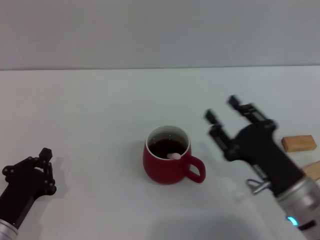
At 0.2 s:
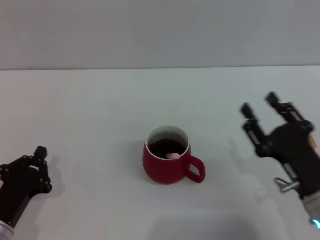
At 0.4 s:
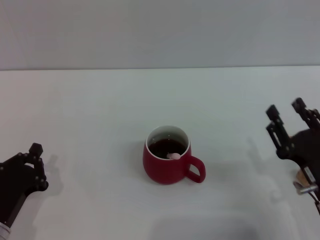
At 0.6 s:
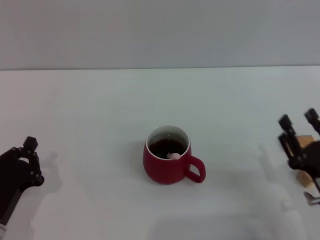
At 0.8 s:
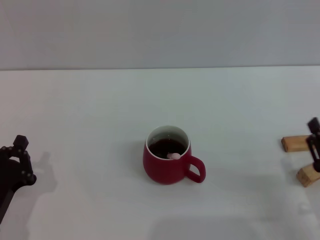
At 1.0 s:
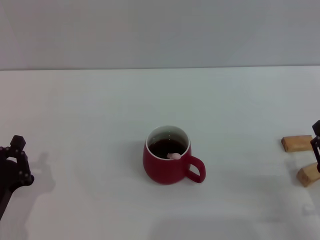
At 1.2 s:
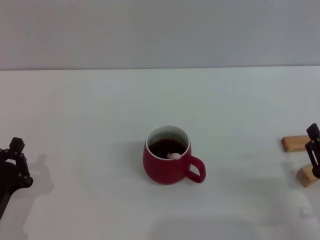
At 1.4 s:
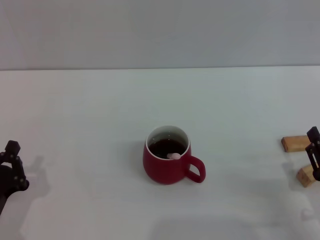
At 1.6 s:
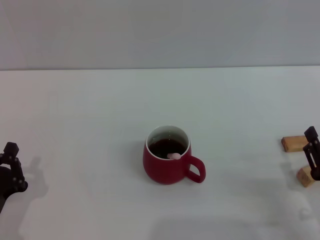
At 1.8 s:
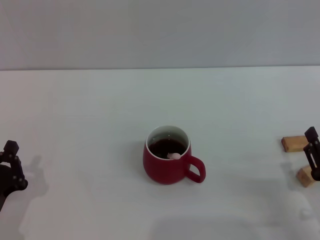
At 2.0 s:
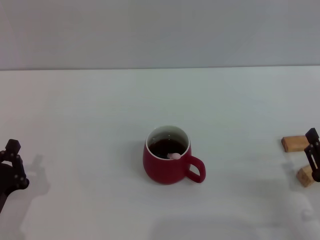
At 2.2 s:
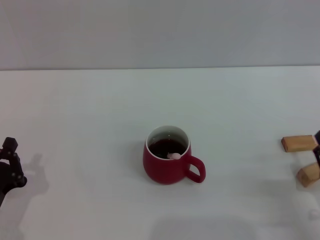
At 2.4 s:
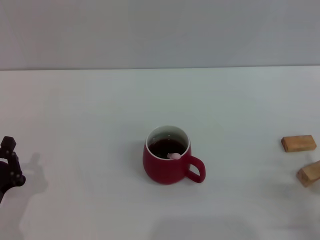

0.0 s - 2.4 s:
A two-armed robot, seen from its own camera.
Task of the whole recording: Move the red cup to the center, lift the pink spoon, stir it three times in the cup, and put the spoon into the cup.
0.0 s - 1.2 s: The right gripper shifts about 10 cm to the right and backward.
1.2 s - 2.4 s: The grippers stay close to where they were, moving slightly.

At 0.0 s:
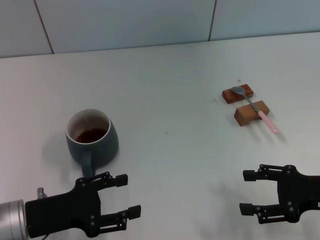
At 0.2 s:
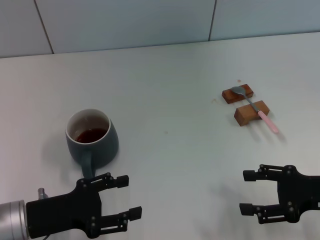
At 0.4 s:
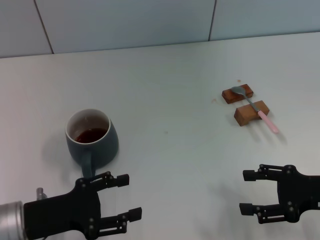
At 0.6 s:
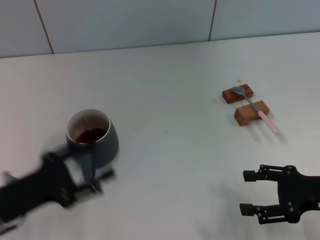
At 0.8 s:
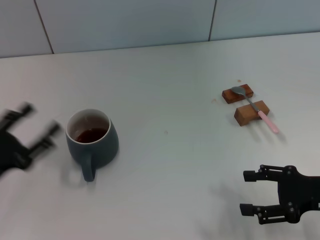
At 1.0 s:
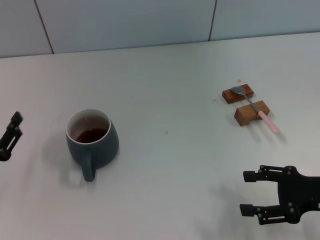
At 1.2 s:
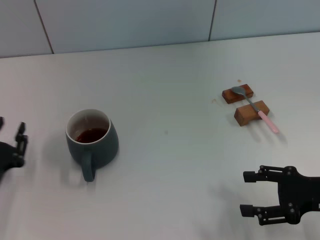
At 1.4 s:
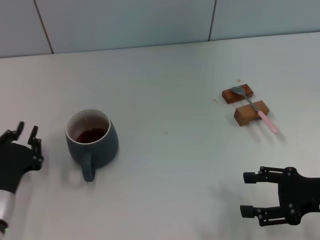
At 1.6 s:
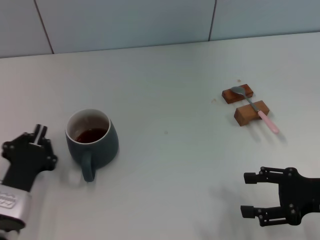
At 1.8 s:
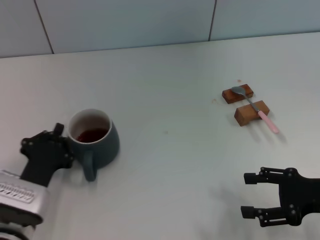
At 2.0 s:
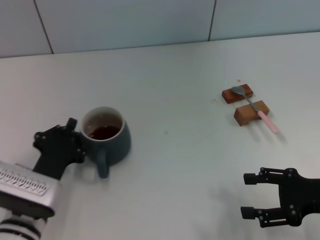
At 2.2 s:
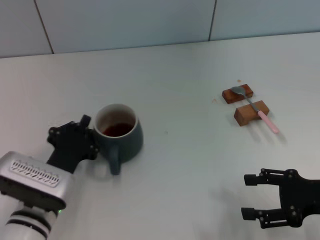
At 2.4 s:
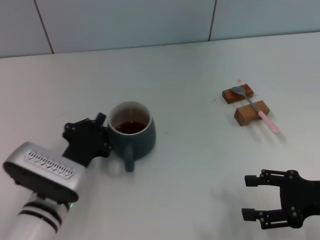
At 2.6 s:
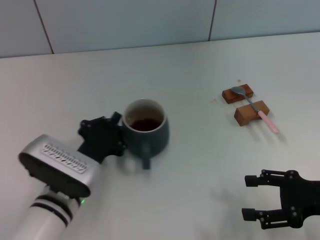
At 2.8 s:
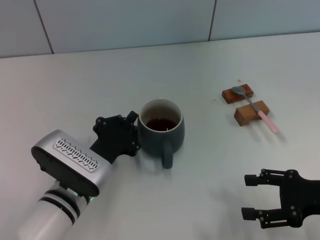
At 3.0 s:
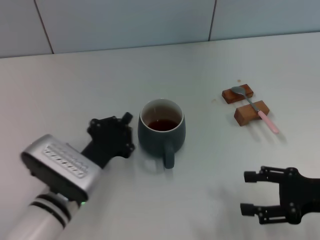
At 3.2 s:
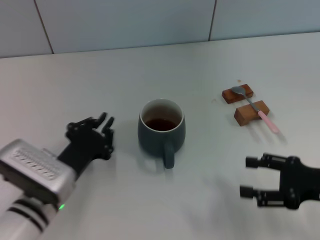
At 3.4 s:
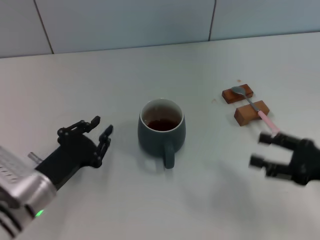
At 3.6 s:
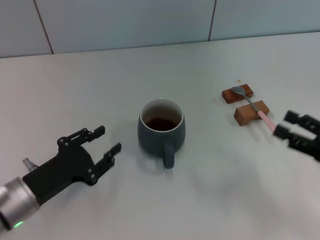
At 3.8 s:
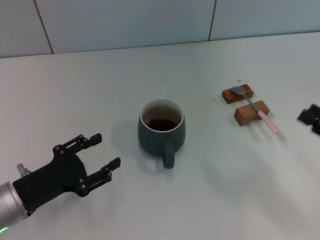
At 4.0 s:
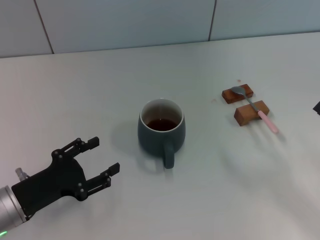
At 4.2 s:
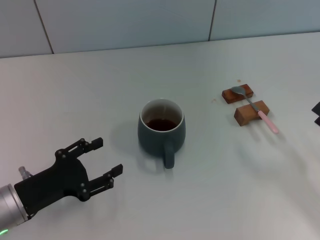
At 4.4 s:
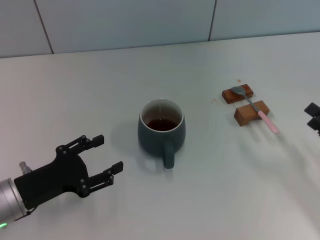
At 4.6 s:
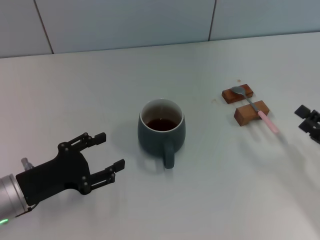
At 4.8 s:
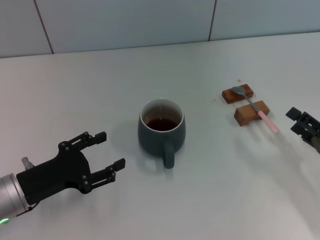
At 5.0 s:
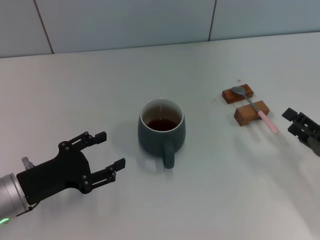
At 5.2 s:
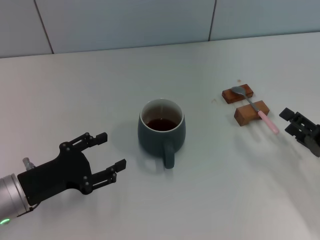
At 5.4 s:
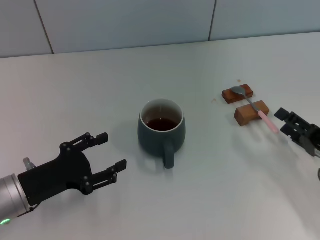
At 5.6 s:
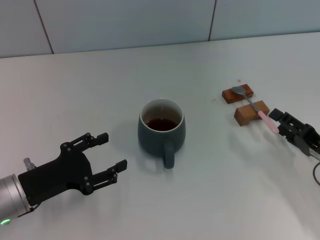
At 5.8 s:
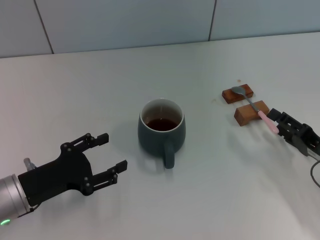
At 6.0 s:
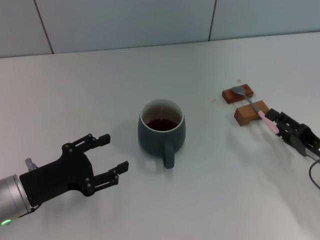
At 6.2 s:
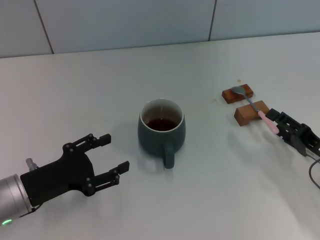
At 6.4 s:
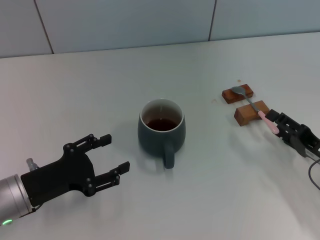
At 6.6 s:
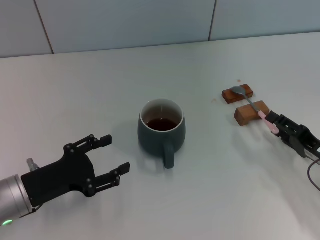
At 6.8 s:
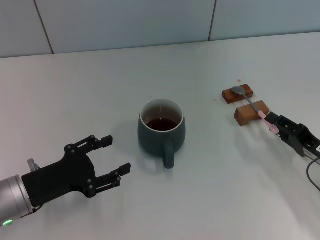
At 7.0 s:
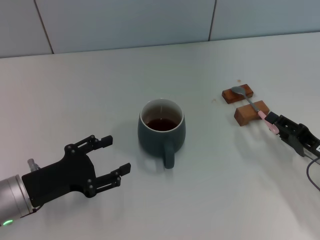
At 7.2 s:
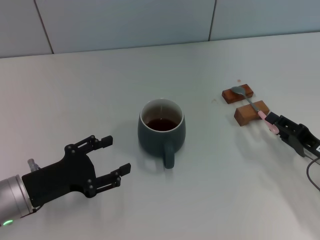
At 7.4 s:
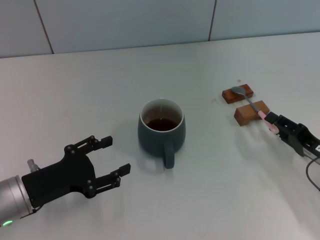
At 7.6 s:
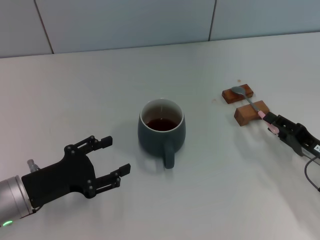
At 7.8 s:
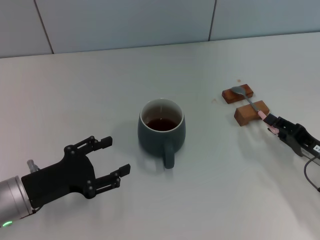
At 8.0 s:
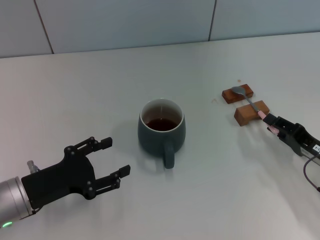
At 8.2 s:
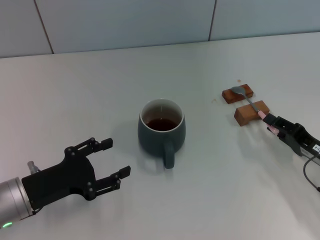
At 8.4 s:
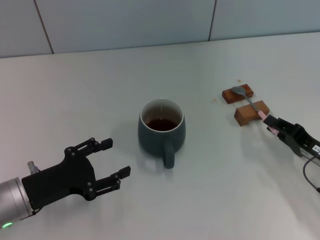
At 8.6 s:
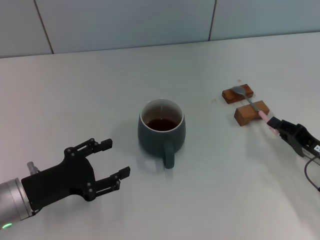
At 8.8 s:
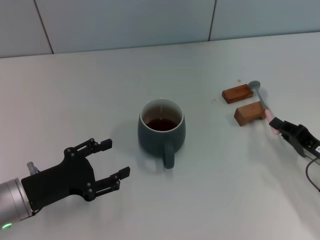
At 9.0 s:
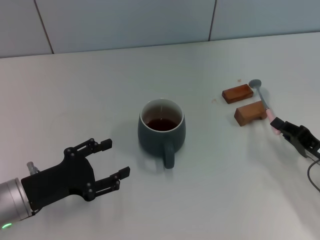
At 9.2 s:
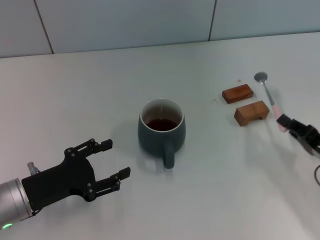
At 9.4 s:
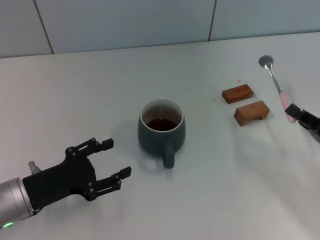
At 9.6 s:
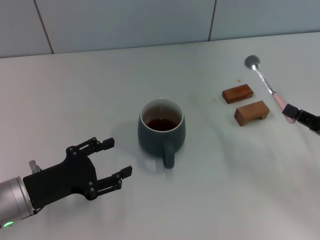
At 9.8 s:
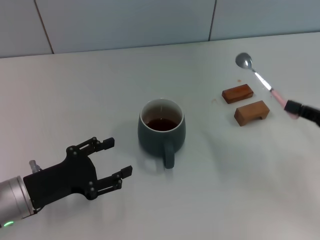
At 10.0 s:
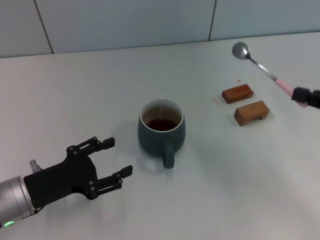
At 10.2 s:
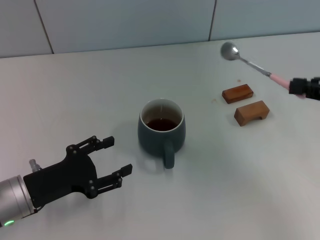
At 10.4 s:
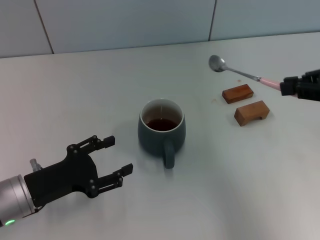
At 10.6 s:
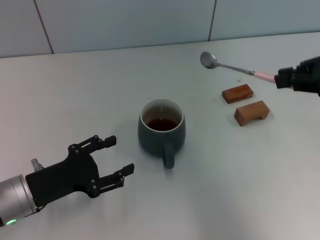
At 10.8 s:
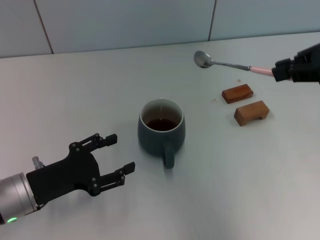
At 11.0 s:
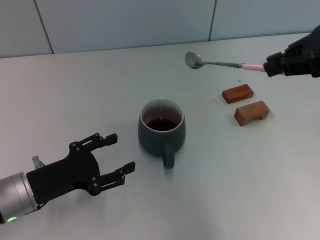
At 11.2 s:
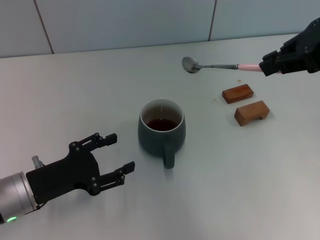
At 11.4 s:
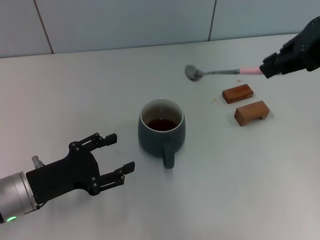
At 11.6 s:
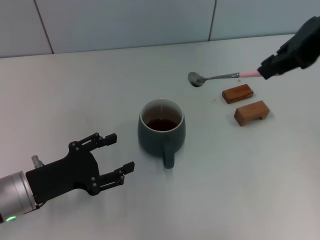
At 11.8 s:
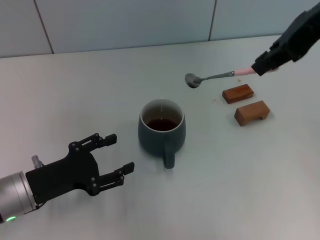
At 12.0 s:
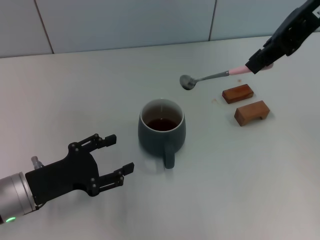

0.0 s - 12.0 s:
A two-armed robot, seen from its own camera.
Task of the whole recording: Move the grey cup to the center, lift the pink spoon, stir it three times in the cup, and put the spoon into the cup.
Step, 0.0 s - 3.0 s: Move the cup with coffee to the center of view with the left gripper.
Step, 3.2 s - 9.2 s: Pick up the spoon with the right gripper.
0.0 s - 1.6 s: The left gripper goes to the left and returns, roughly 5 cm each way, and closes.
1.6 s - 3.0 s: The left gripper shifts about 10 cm to the right.
3.0 s - 4.4 s: The right gripper changes place by roughly 5 cm. The left gripper moves to the left, about 10 cm, and opens its fingers.
4.4 s - 6.0 s: The right gripper moves approximately 5 cm.
6.0 s - 7.6 s: Both grippers stay put.
7.6 s - 9.0 s: The right gripper closes.
9.0 s - 10.4 s: The right gripper travels upward by roughly 20 cm.
10.4 s - 12.0 s: The right gripper moves upward, to the left and forward, some 20 cm.

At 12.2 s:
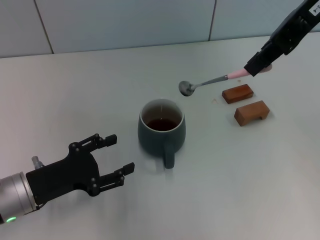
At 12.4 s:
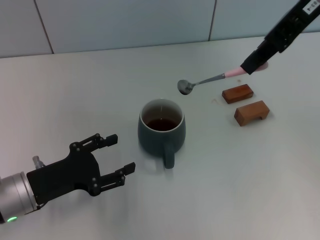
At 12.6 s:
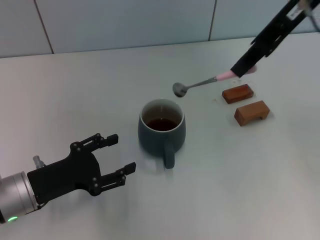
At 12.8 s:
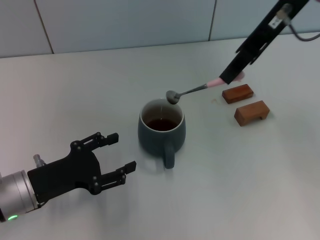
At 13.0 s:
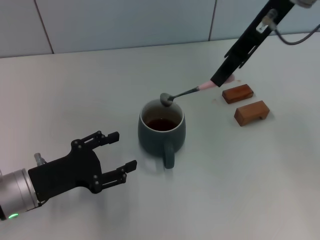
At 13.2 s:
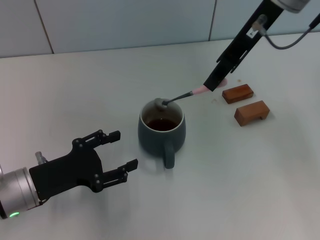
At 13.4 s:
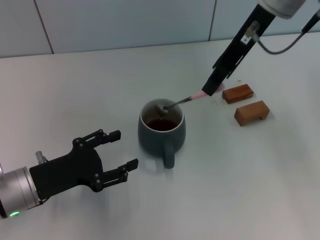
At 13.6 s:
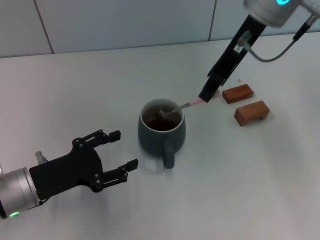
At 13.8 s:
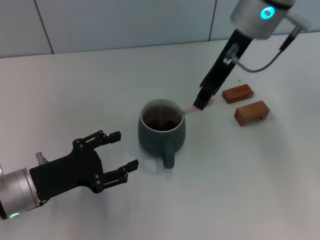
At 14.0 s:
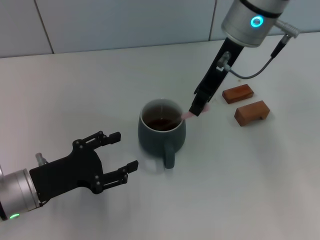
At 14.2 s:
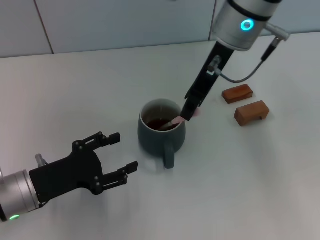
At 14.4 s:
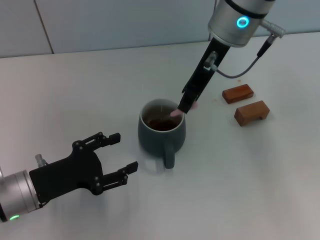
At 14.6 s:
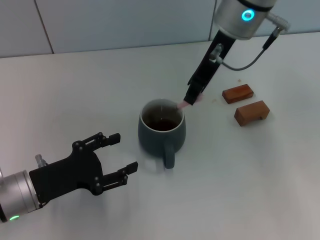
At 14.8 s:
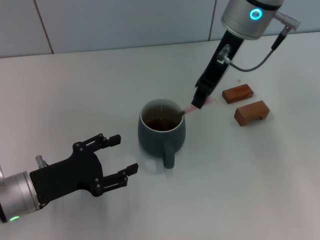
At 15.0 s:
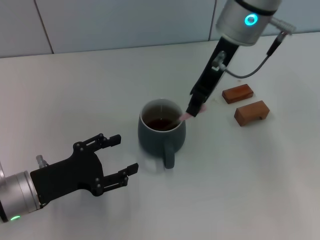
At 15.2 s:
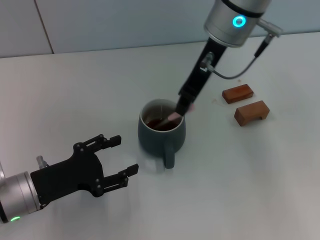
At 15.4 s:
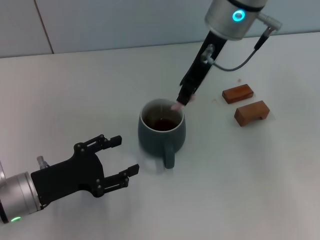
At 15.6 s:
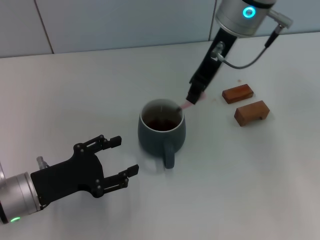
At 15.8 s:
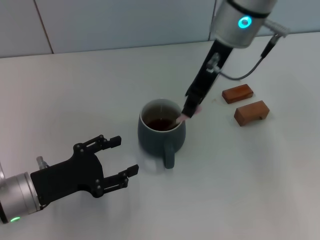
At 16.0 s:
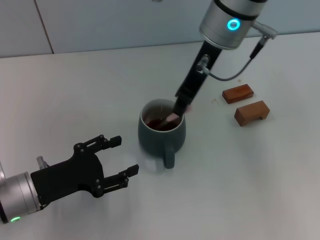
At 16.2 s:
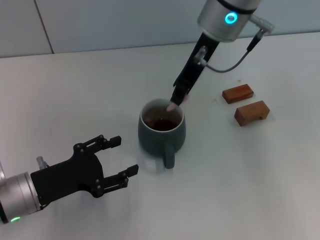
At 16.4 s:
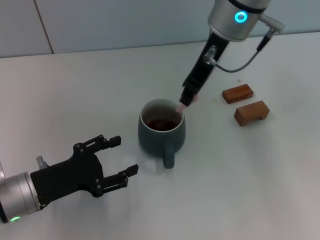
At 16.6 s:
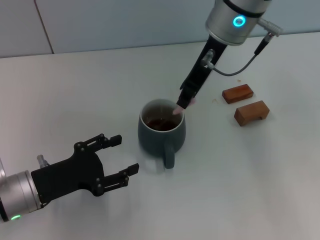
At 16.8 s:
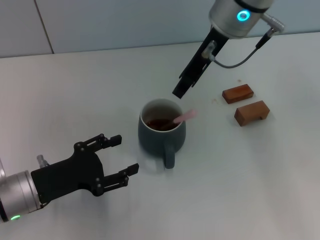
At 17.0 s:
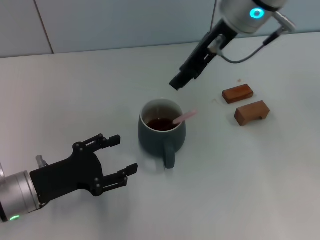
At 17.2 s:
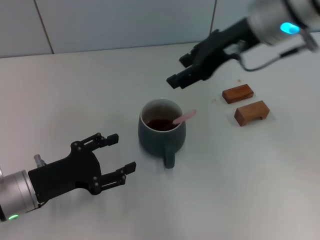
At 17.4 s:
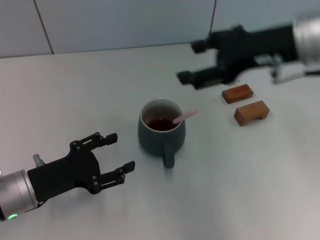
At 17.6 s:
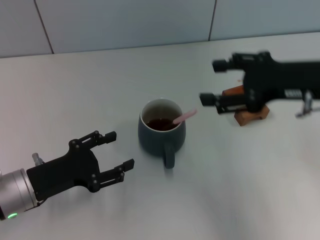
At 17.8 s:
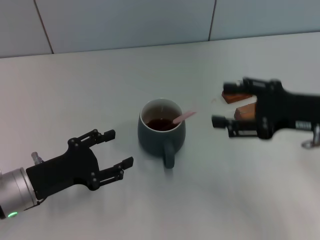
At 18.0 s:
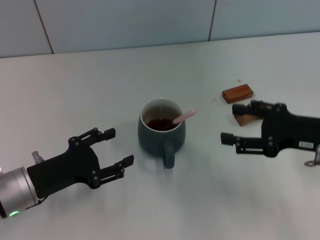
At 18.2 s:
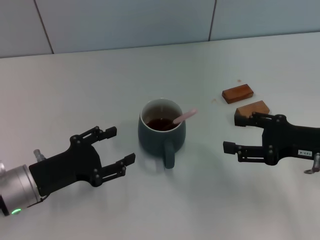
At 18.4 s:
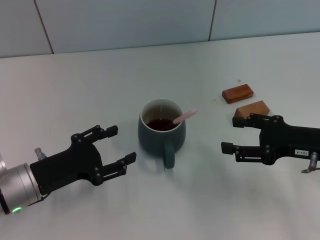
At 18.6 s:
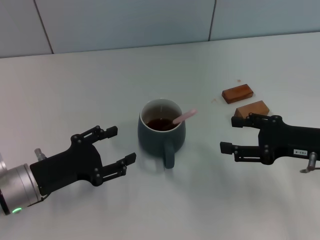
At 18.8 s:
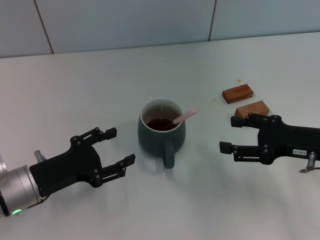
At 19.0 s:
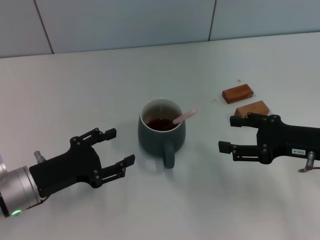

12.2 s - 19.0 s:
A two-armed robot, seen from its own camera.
Task of the whole recording: Move the grey cup to the center, lift the pink spoon, stir it three times in the cup, and put the spoon into the cup.
Step, 12.2 s - 17.0 s: Stir the coffee in the cup with the right gripper.
12.2 s - 13.6 s: The right gripper travels to the left and downward by about 10 cm.
13.6 s - 16.2 s: The grippers make only small movements.
16.2 s - 17.6 s: The right gripper travels to the right and backward by some 20 cm, and opens its fingers.
17.6 s - 19.0 s: The right gripper goes some 10 cm downward.
